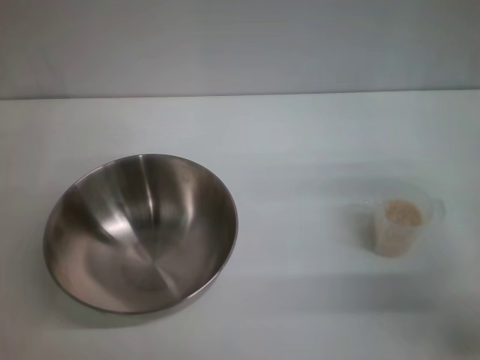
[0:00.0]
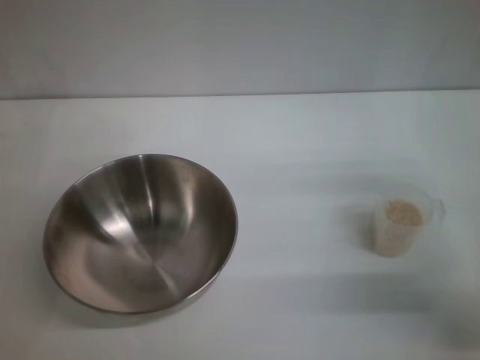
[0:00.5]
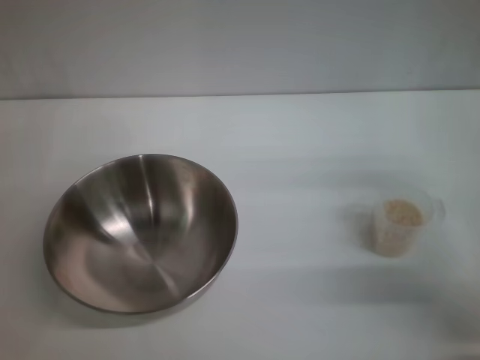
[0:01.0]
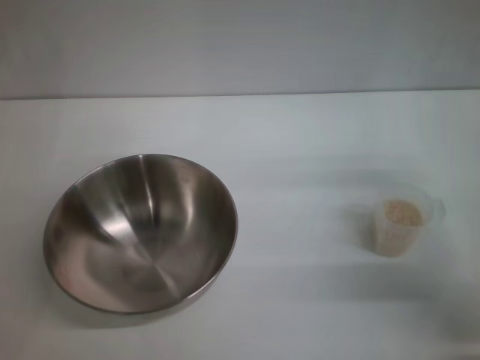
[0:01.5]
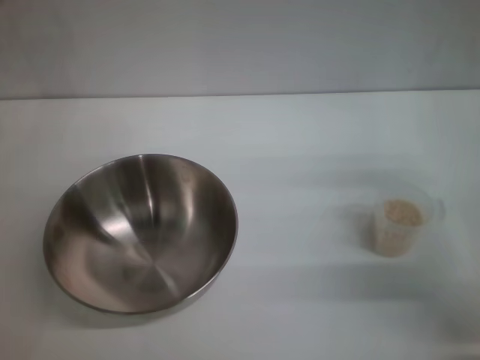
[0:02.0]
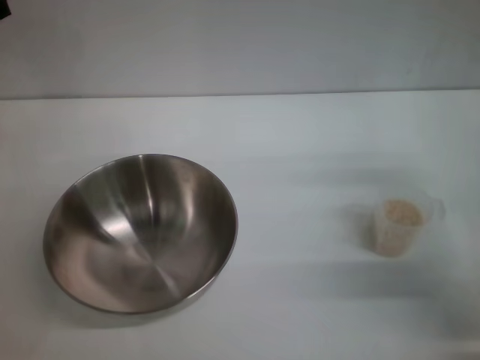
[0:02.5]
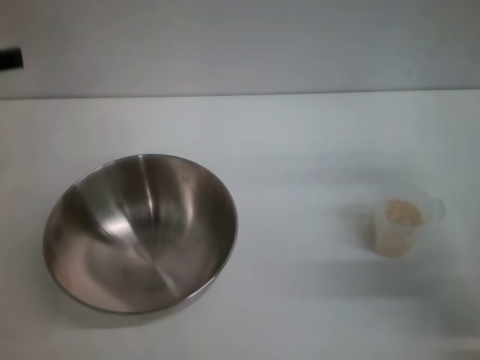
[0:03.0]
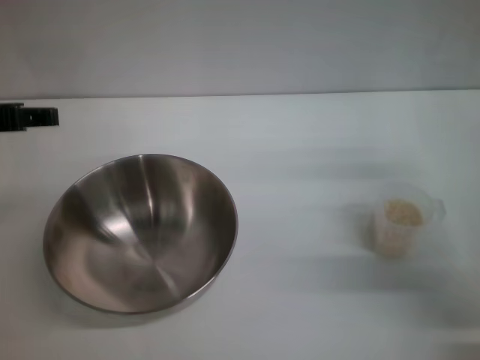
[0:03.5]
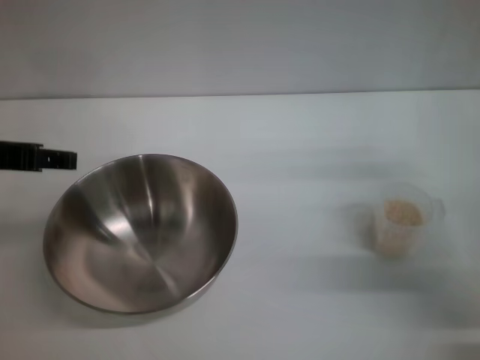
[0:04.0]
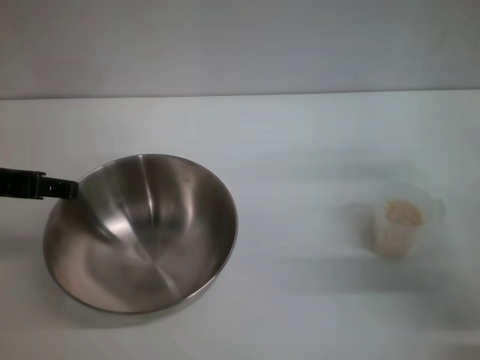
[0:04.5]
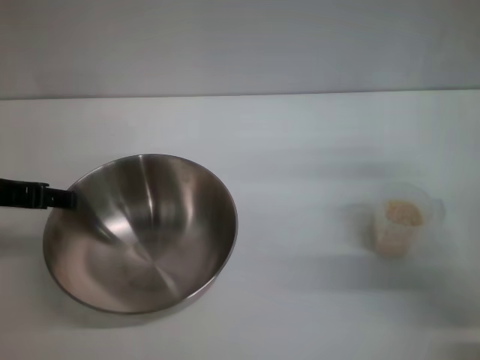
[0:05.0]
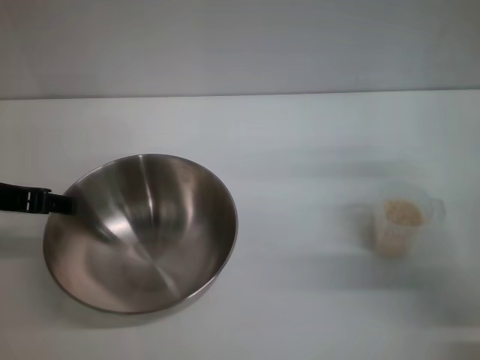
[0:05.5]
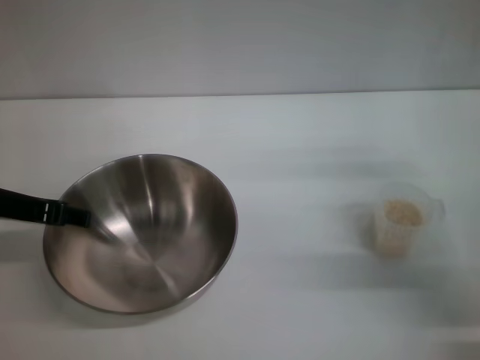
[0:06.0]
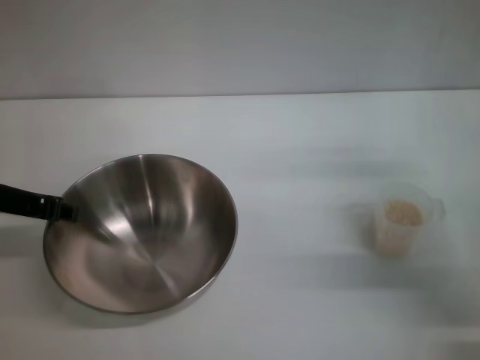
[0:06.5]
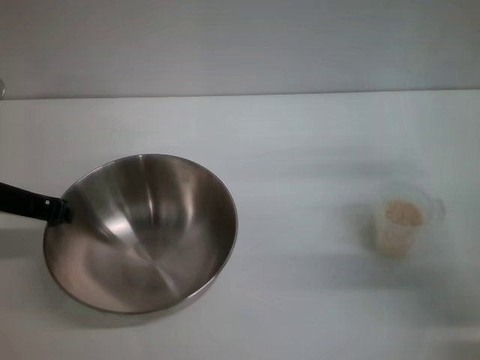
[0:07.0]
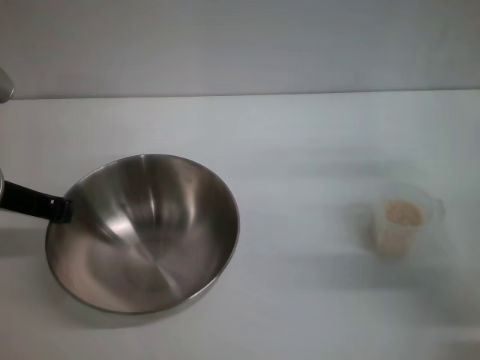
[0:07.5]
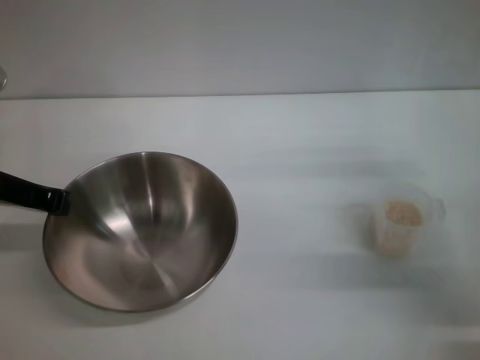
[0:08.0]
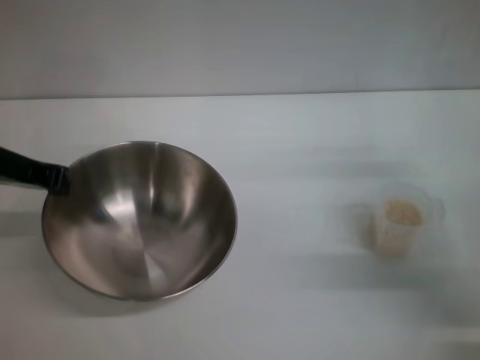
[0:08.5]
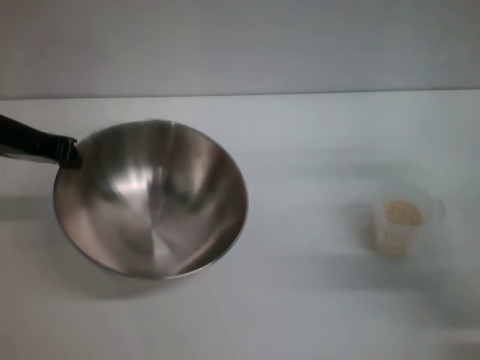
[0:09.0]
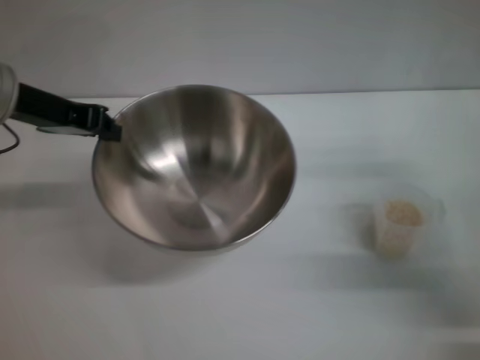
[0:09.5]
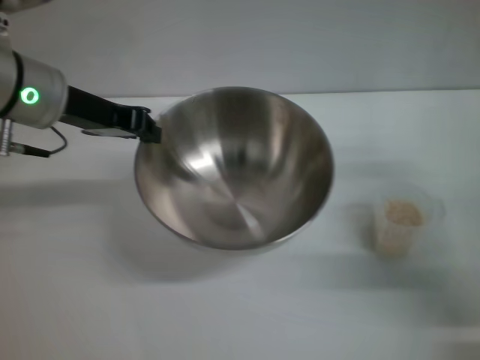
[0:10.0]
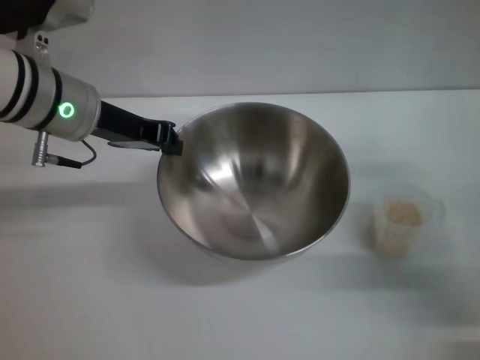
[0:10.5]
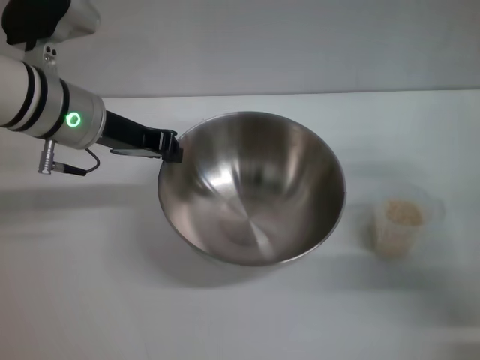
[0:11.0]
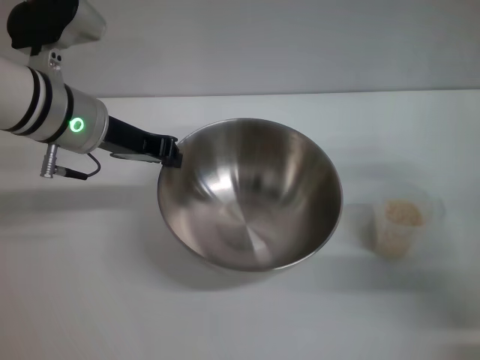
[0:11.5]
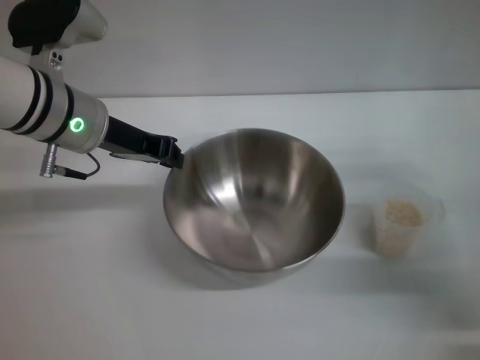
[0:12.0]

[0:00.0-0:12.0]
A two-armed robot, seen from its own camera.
Task of the whole recording: Place the bowl in the middle of the table with one hand and pour the rice from the grain cup into it with the other hand.
Step, 0:00.0 to 0:08.5: Pick up the bowl with the left gripper.
0:02.0 to 0:04.0: The left gripper travels backward by roughly 5 cm.
0:04.0 to 0:06.0: The left gripper is displaced downward by approximately 5 cm.
0:06.0 to 0:08.0: The left gripper closes its fingers.
0:08.0 to 0:10.0: The left gripper is displaced forward by roughly 5 cm.

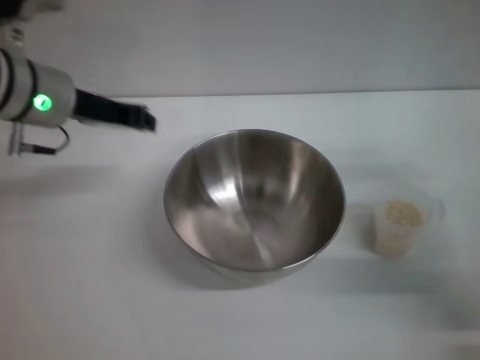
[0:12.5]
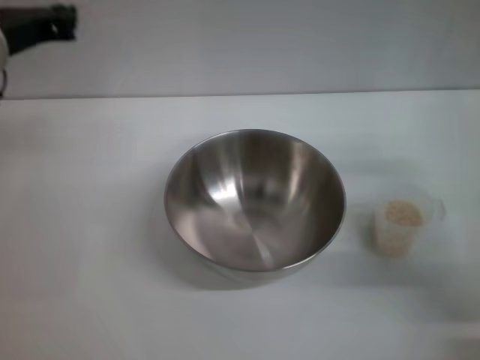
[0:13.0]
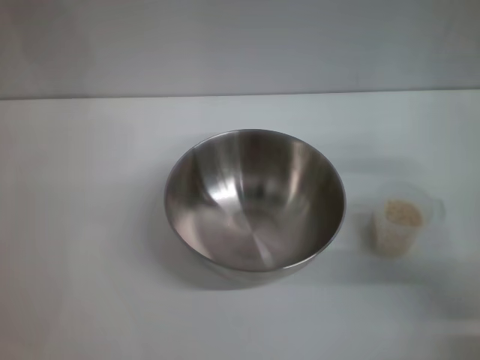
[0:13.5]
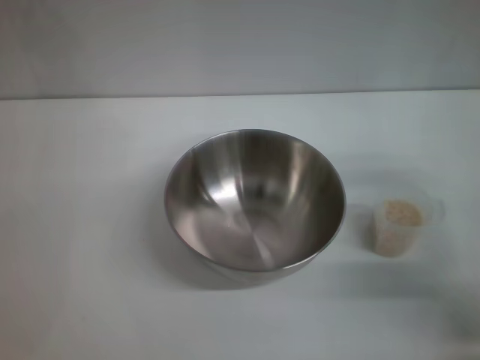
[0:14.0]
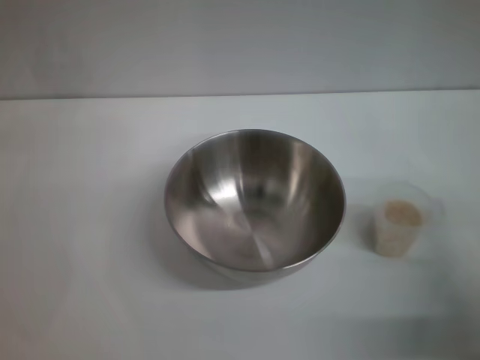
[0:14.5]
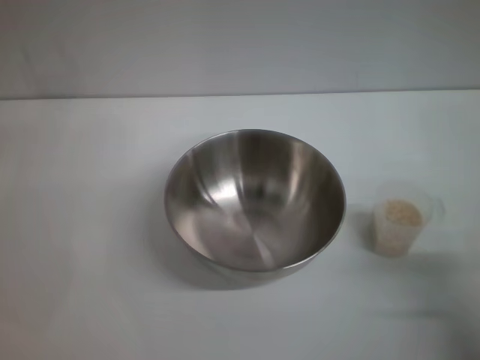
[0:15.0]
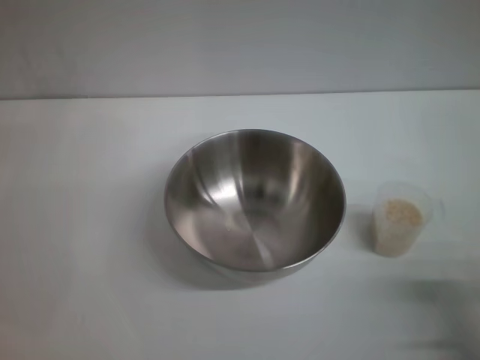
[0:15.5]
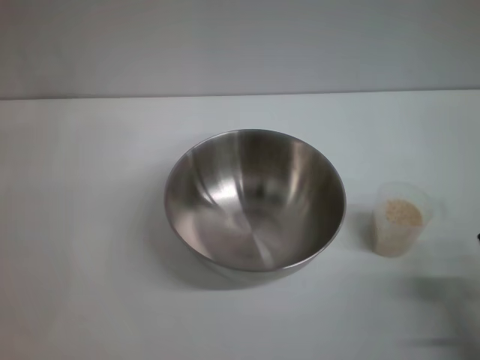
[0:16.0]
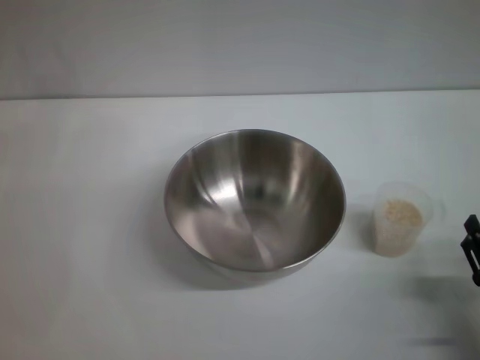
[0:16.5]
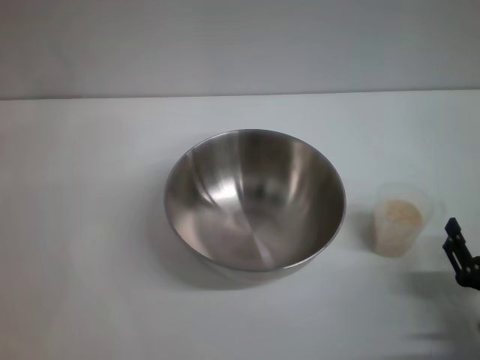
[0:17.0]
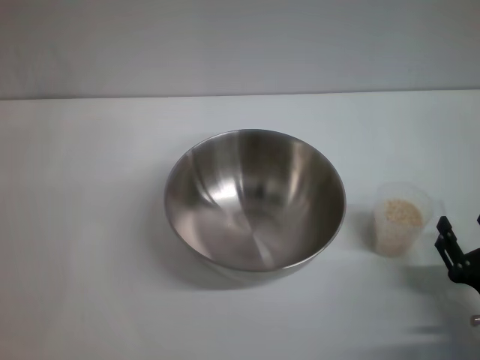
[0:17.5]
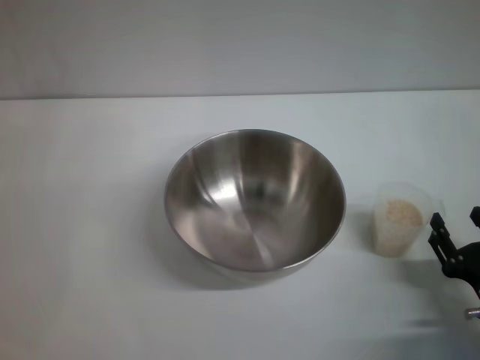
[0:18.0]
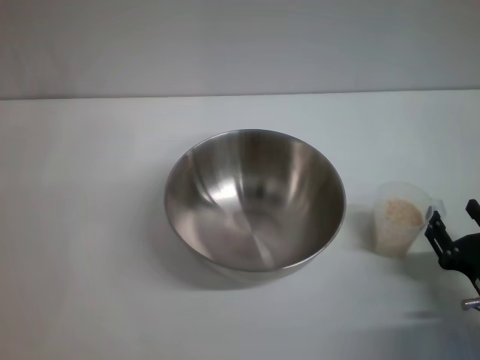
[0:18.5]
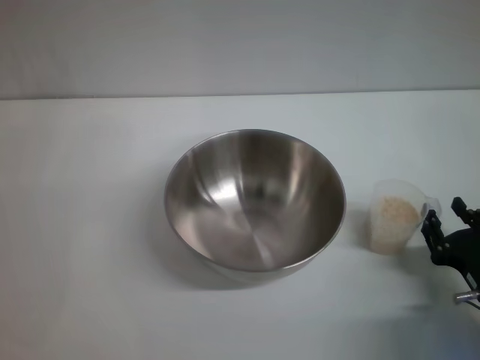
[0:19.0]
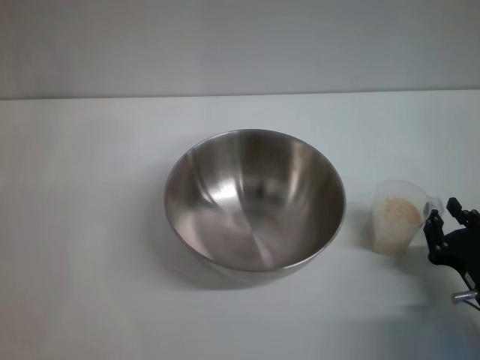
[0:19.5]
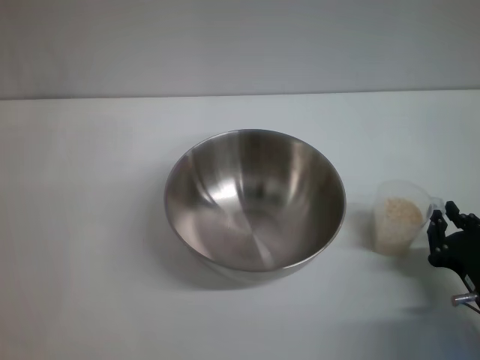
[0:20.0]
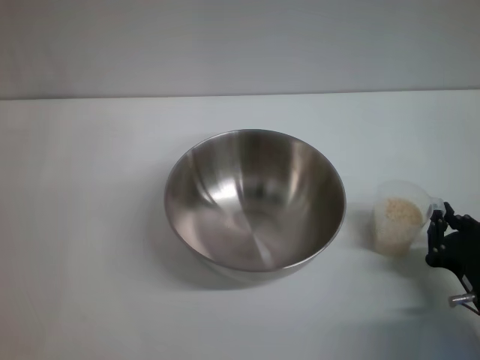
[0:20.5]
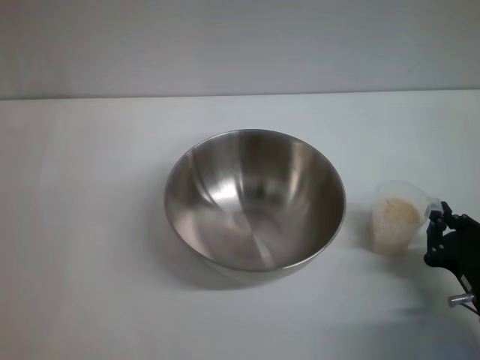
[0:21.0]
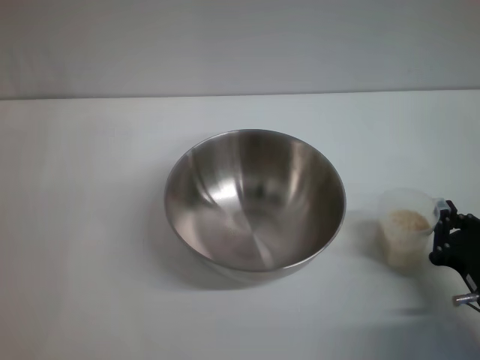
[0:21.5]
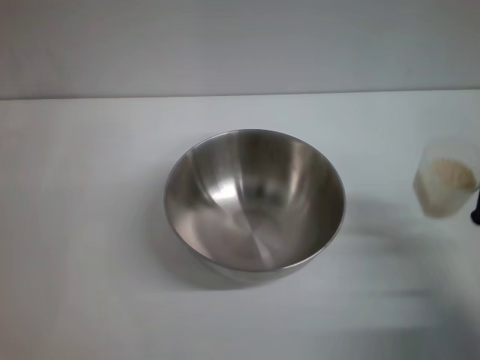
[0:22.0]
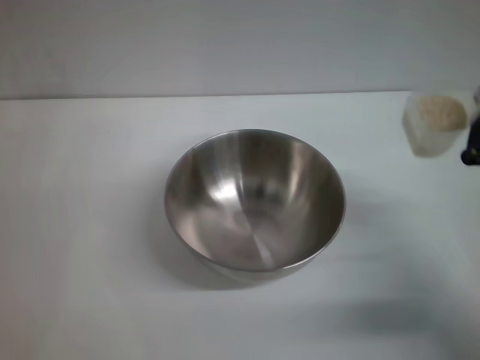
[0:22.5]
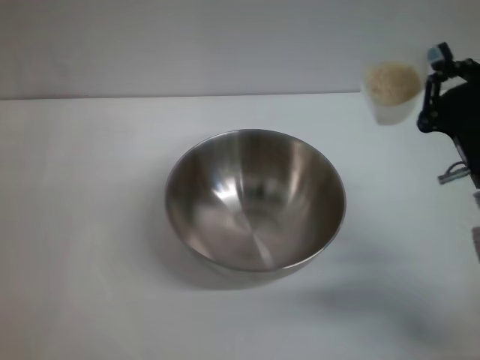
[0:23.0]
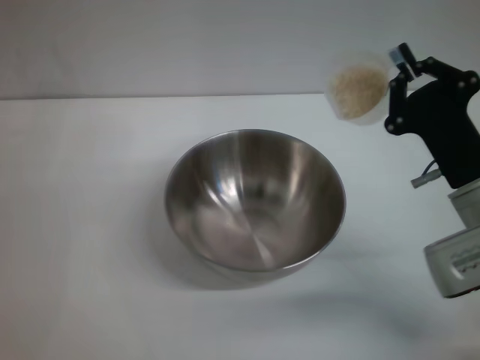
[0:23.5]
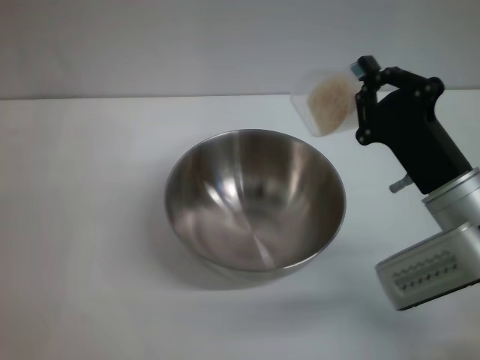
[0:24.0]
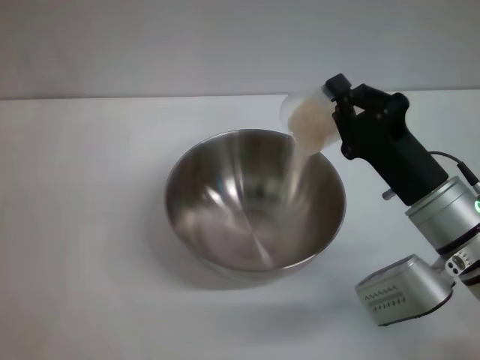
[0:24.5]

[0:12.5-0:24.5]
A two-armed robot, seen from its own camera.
Task of the whole recording: Place the bowl in the middle of the table with one hand and pour the rice from the grain cup into it with the other hand.
Step, 0:13.0 to 0:22.0: Pick up the cup with rice in it with the right gripper.
0:12.5 to 0:14.5: The right gripper heads backward, covering some 5 cm. The left gripper moves downward, backward and to the left, roughly 15 cm.
0:14.5 to 0:16.5: The right gripper moves backward and downward, about 10 cm.
0:16.5 to 0:18.5: The grippers stay close to where they were, moving slightly.
0:18.5 to 0:20.5: The right gripper closes.
0:20.5 to 0:22.5: The right gripper moves upward, about 5 cm.
0:22.5 to 0:24.5: The right gripper heads to the left, covering roughly 10 cm.

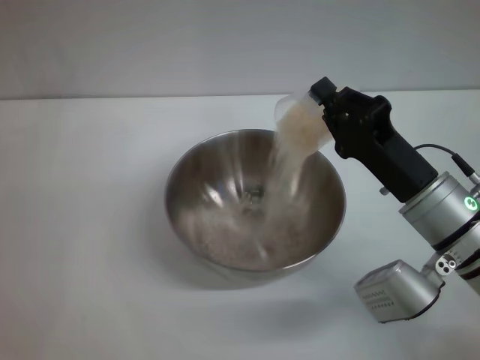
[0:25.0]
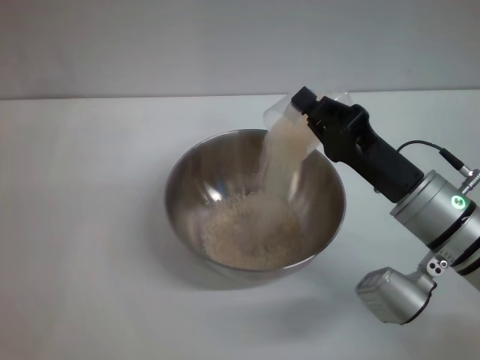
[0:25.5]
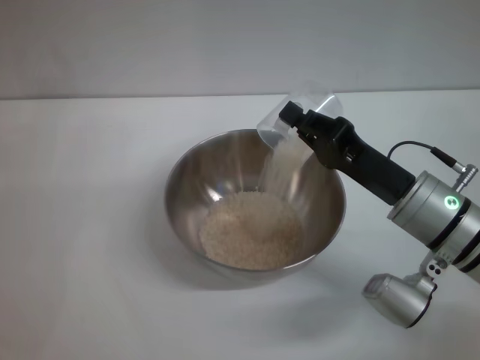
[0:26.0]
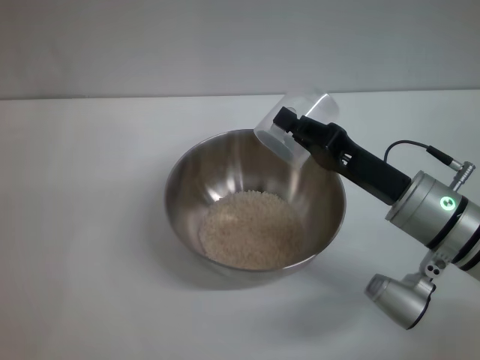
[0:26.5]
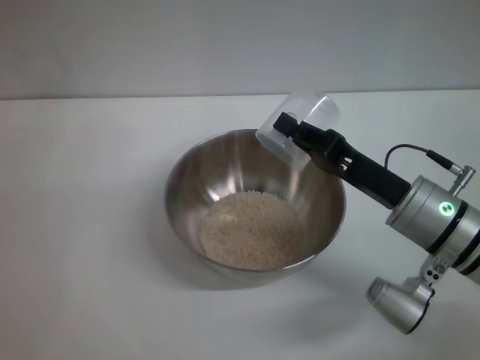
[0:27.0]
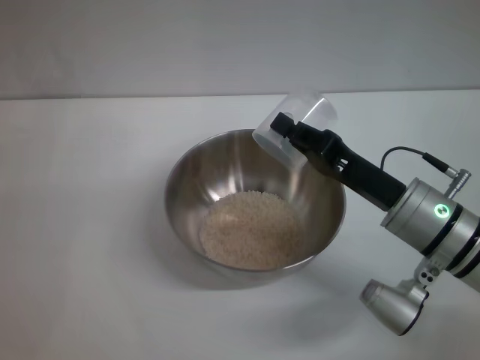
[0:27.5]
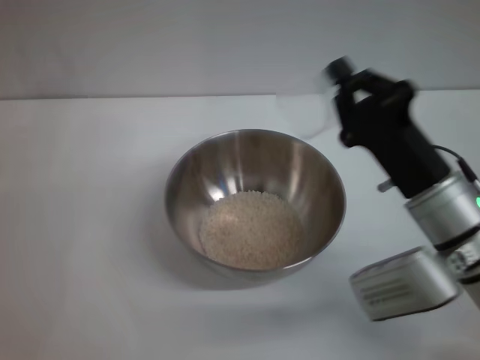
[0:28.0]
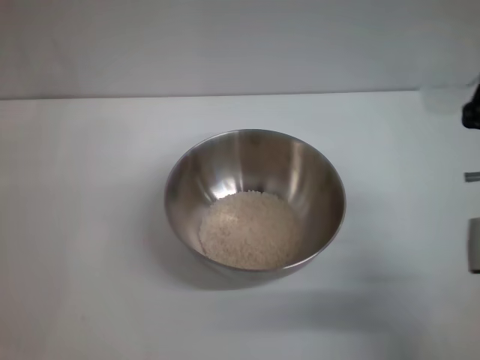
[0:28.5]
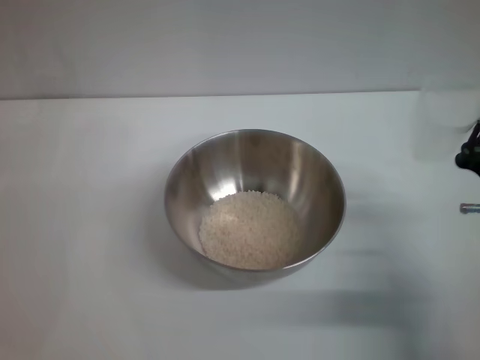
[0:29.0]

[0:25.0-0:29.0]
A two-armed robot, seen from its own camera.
Task of the whole recording: Place the bowl in the middle of the table with one hand and pour the rice from the grain cup into it with the other hand.
Step, 0:25.0 to 0:27.5: Pour the rice from the cup into the bowl with the right gripper.
0:27.0 to 0:29.0: The right gripper moves backward and to the right, about 5 cm.
